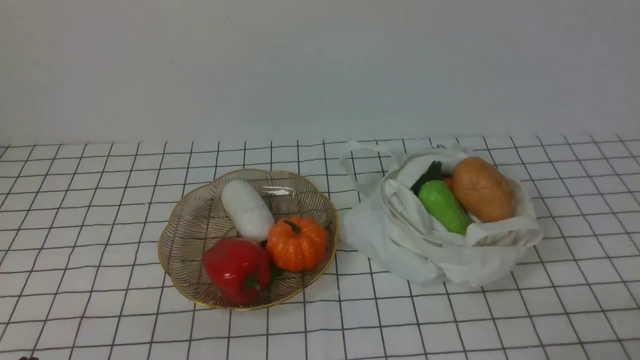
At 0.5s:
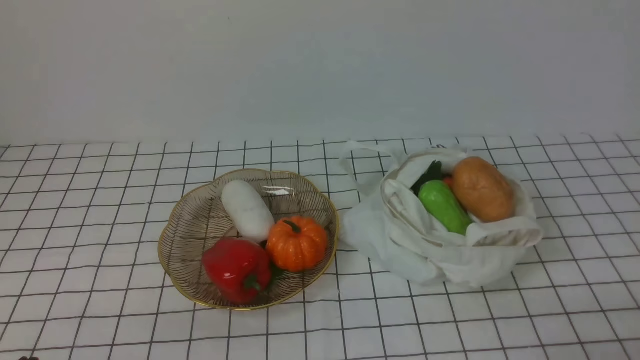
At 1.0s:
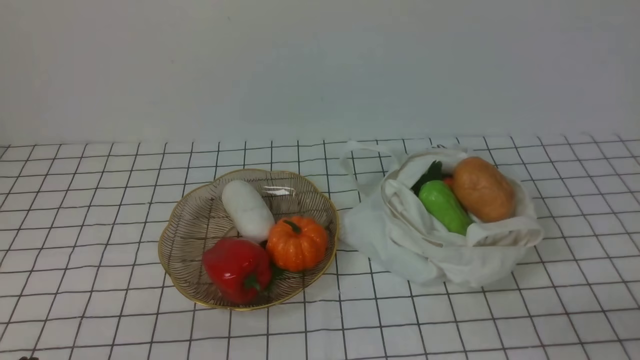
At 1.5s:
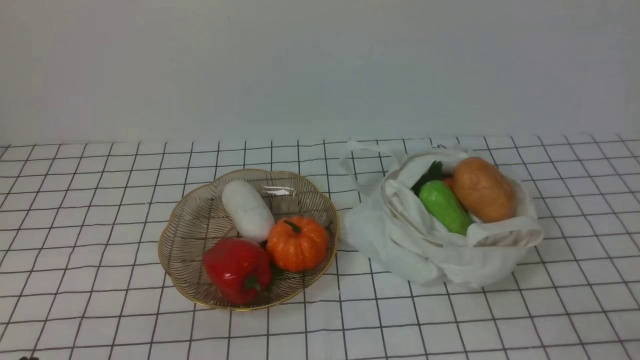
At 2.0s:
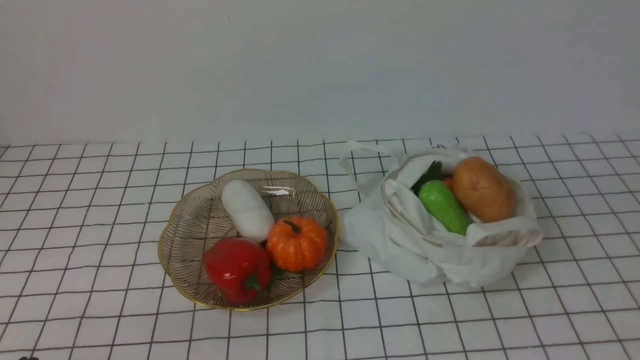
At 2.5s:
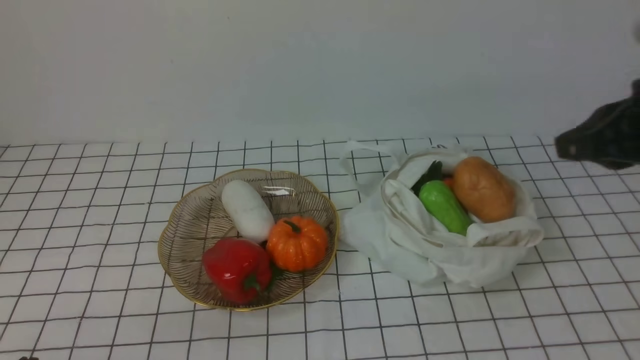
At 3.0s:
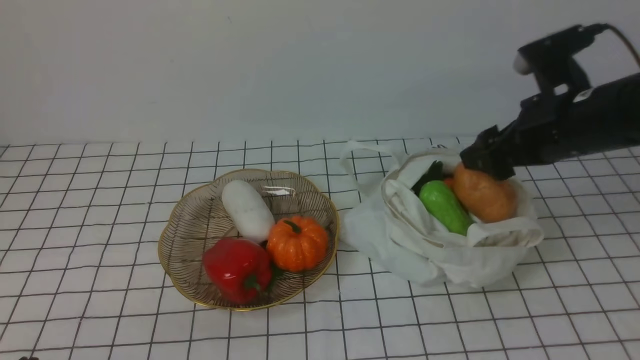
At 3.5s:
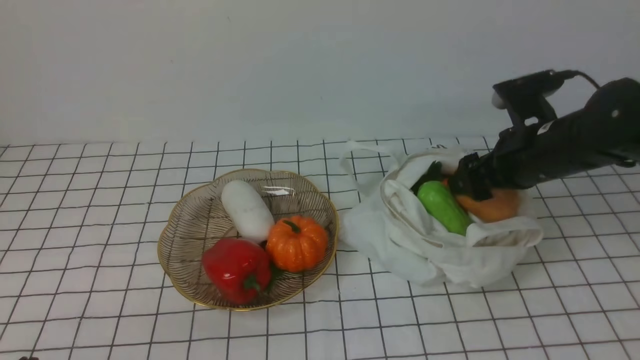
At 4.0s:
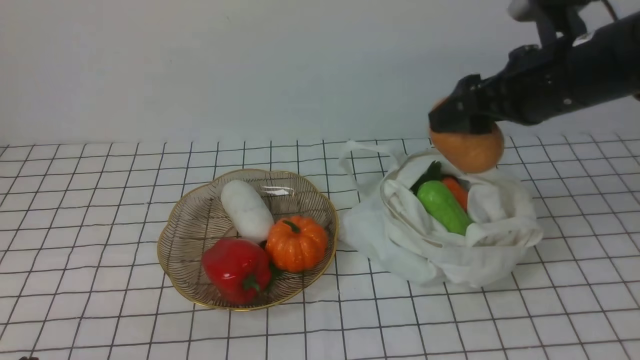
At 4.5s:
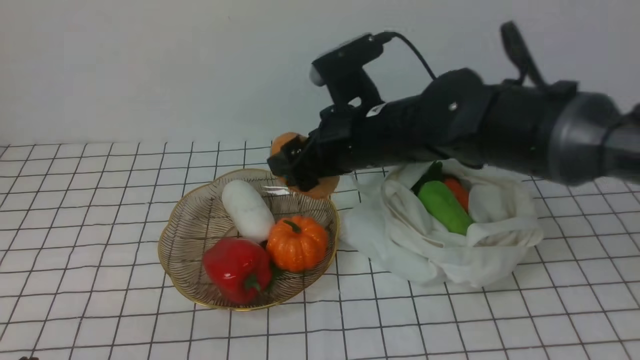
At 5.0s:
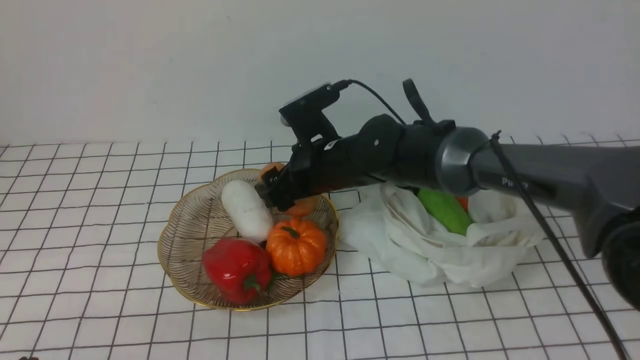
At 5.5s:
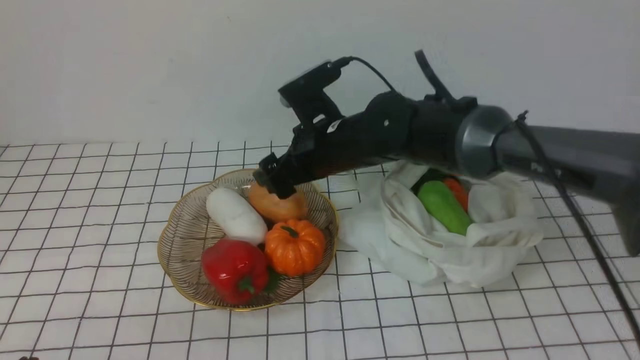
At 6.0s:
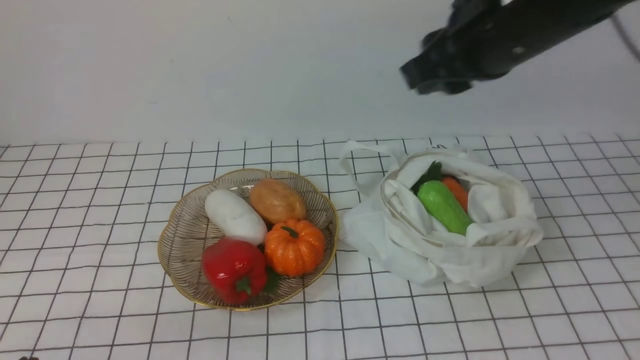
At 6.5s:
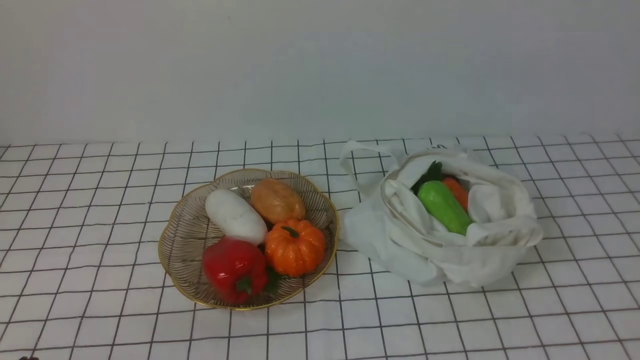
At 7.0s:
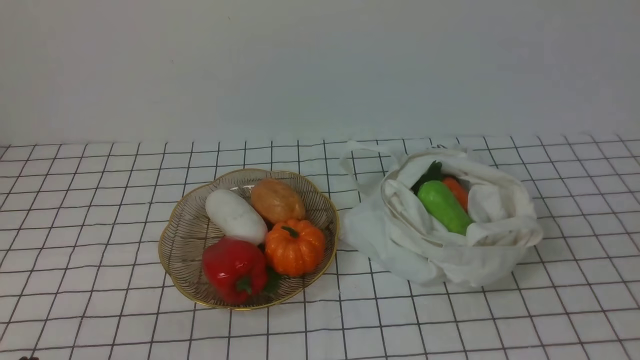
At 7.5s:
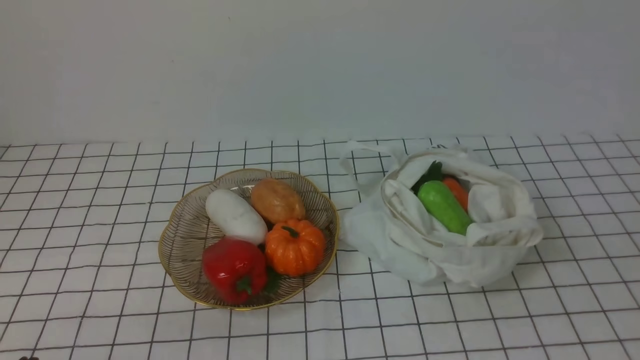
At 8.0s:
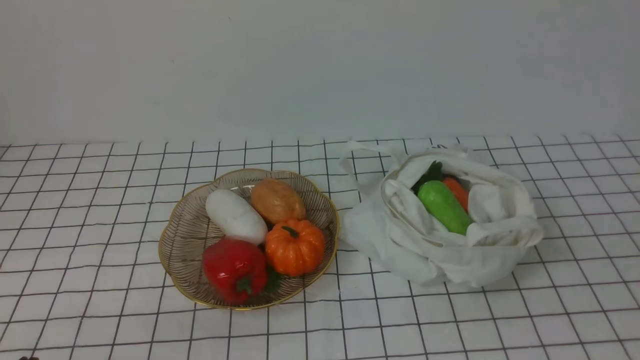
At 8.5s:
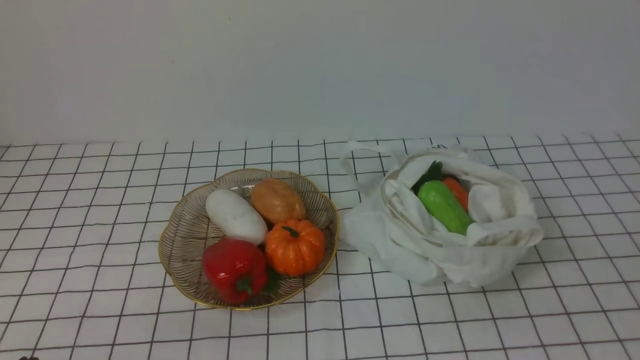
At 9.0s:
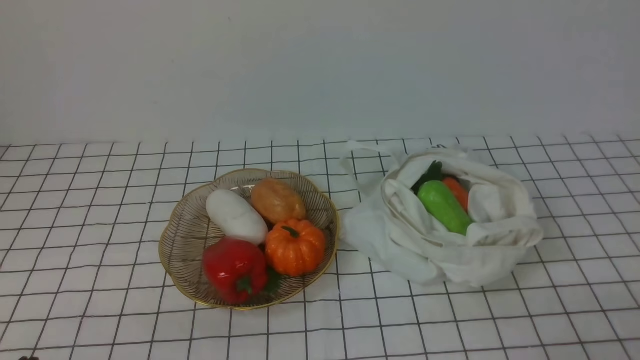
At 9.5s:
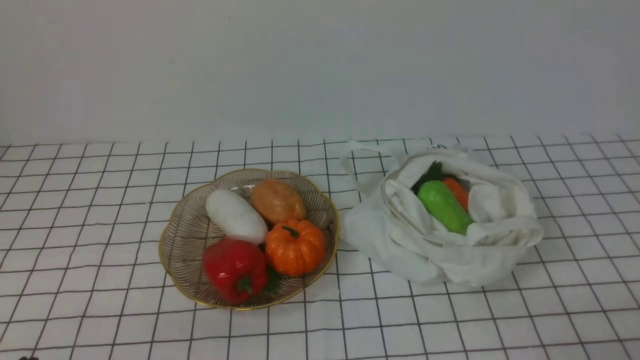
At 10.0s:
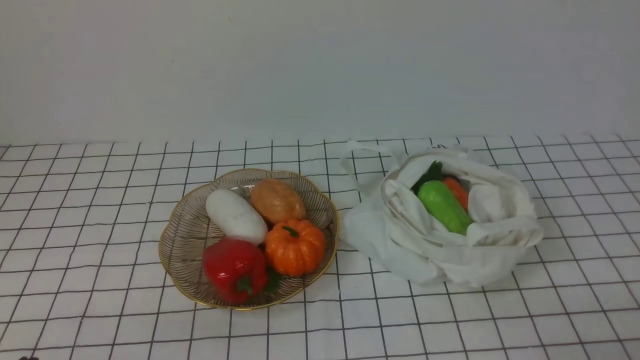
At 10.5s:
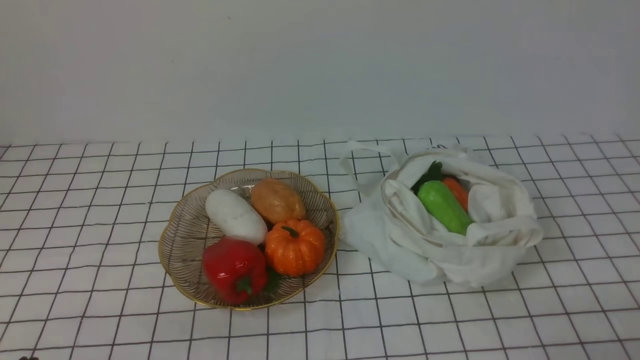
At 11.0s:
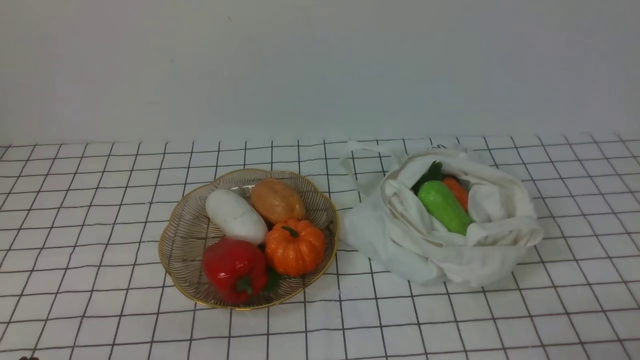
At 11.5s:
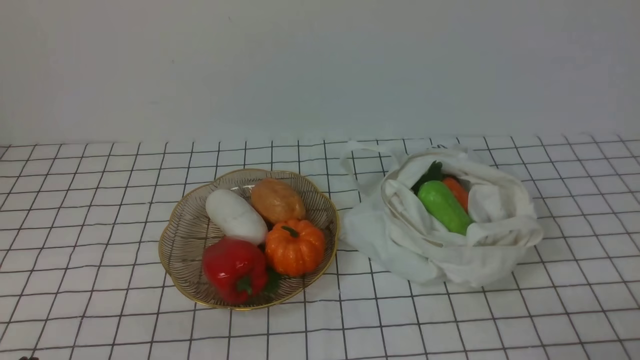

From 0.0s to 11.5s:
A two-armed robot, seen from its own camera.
Task of the whole recording: take vegetables from bag on white checkered tablecloth place on plate.
Step, from 0.0s to 3.5s: Grasp the potato with right gripper.
Step, from 4.0s to 5.5s: Place the potato on the plate with right gripper.
From 2.0s to 4.0s: The right gripper moves forward and to the left, approximately 25 cm, and opens up.
From 4.0s to 6.0s: The right gripper heads upward, covering roughly 10 cm, and closes its fingers.
From 6.0s to 7.5s: The right gripper moves backward and to the right, about 30 cm.
From 9.5s to 11.5s: Both grippers stay about where they are.
